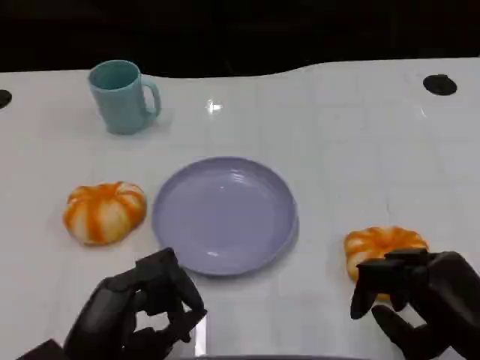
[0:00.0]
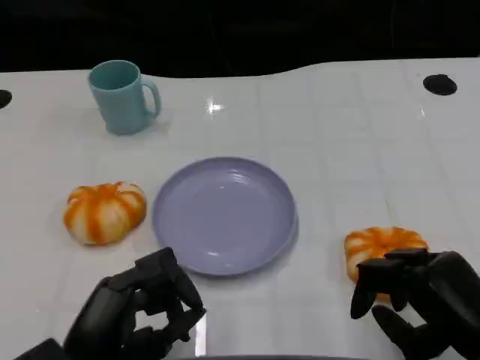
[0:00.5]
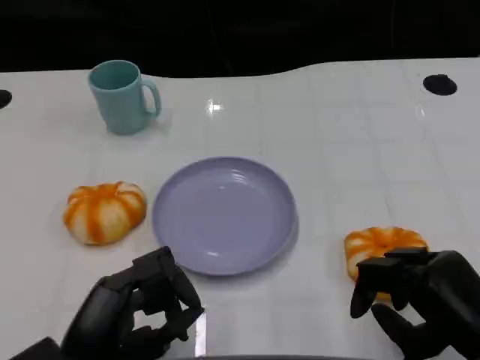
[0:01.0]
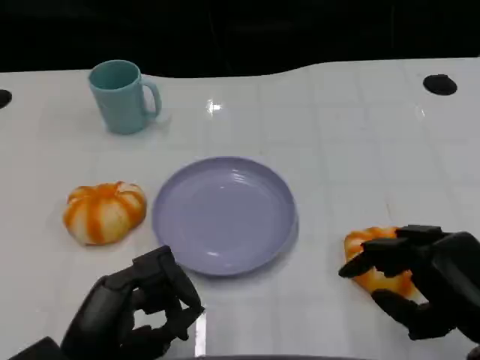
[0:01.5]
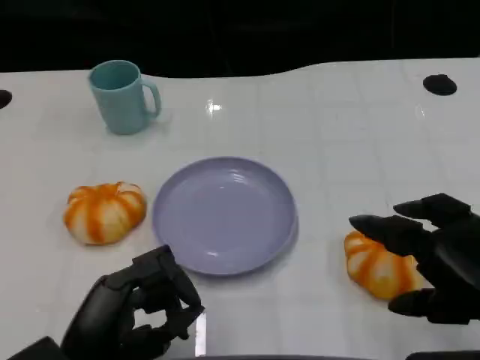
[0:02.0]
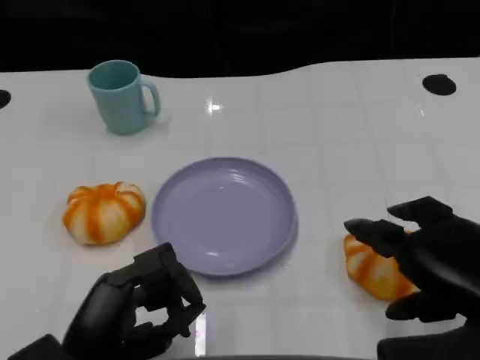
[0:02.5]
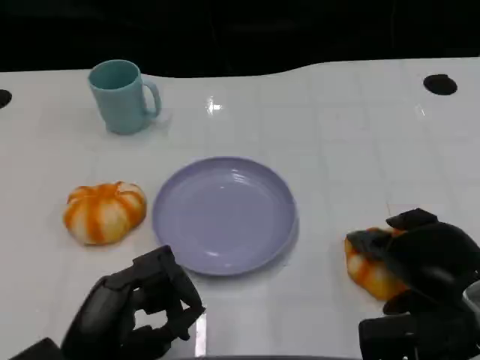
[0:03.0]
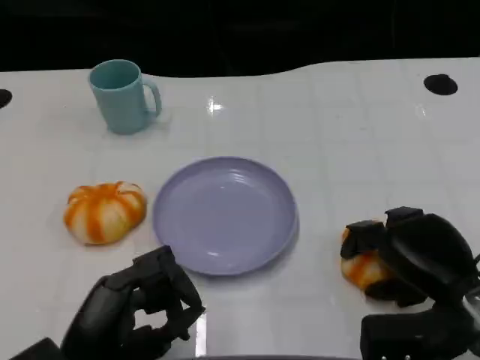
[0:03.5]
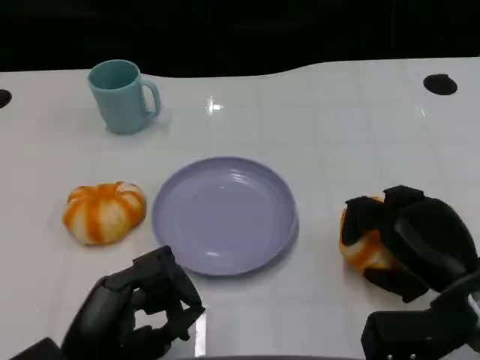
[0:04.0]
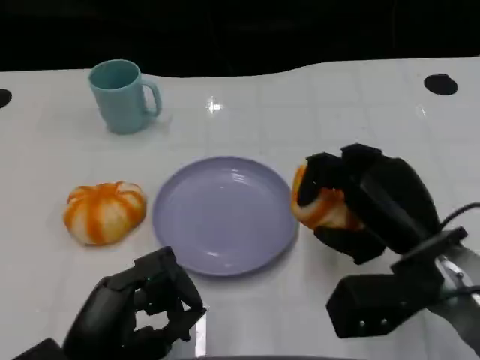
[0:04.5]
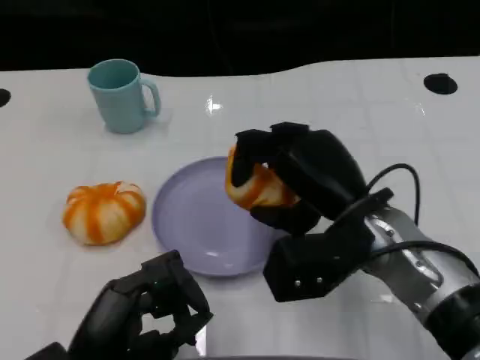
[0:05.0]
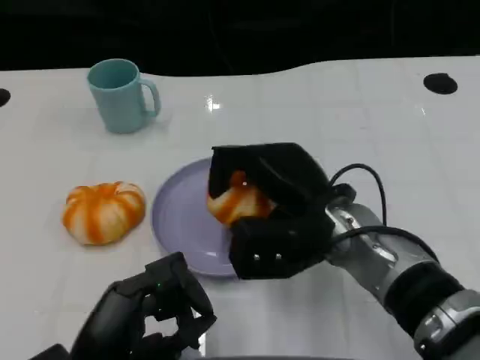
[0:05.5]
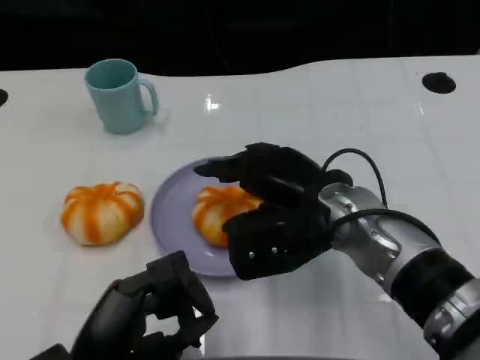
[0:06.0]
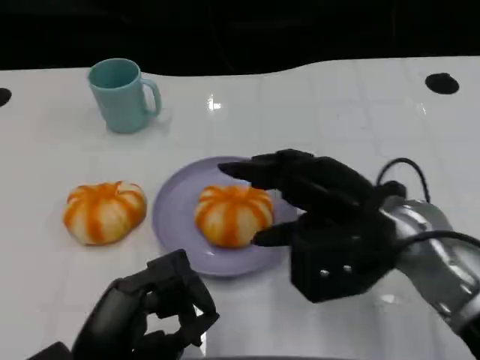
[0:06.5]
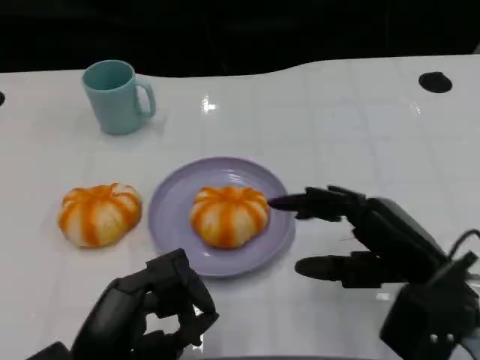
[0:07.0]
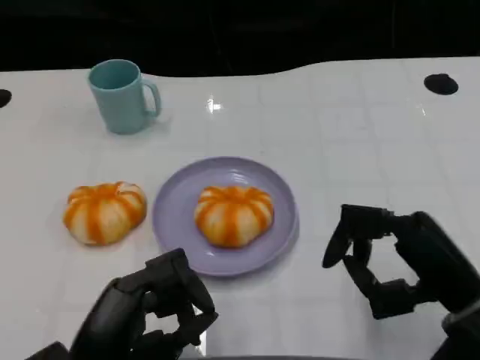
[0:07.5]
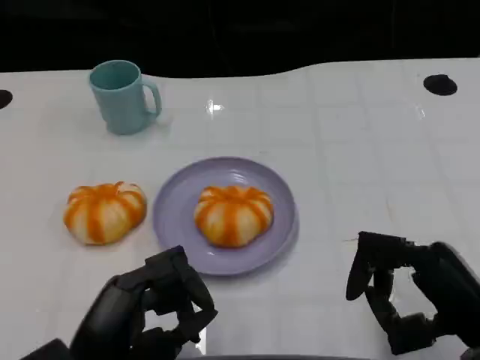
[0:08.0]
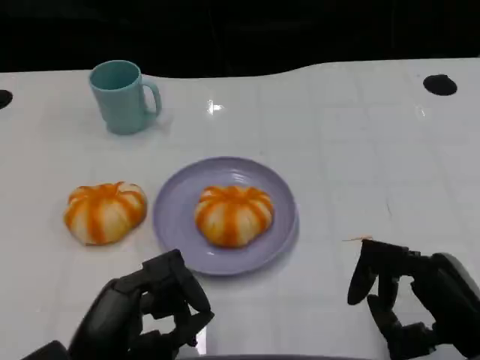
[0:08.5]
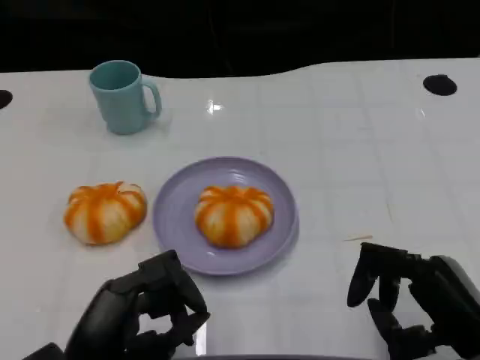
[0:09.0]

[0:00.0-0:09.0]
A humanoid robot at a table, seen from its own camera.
Task of the whole recording: Grasp the bread from the table and place it into the plate.
0:00.0 to 0:02.0: The right hand heads upward, covering approximately 10 cm.
0:02.0 to 0:04.5: The right hand shifts roughly 10 cm forward and to the left.
0:04.5 to 0:07.0: The right hand reaches approximately 10 cm to the left, then returns.
0:07.0 to 0:09.0: The right hand shifts approximately 5 cm backward.
